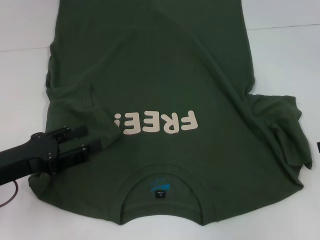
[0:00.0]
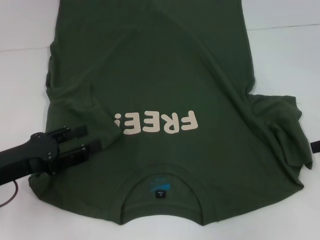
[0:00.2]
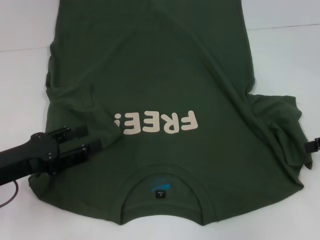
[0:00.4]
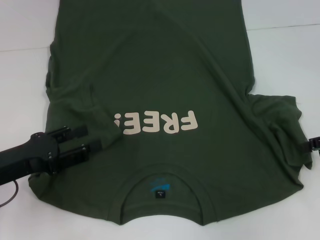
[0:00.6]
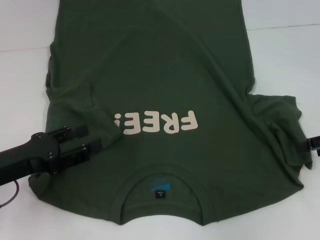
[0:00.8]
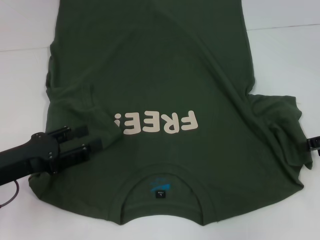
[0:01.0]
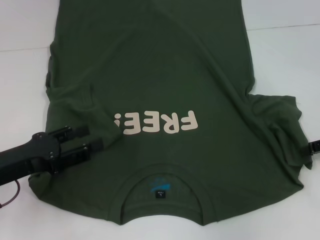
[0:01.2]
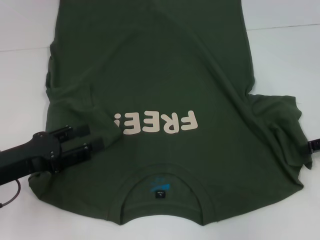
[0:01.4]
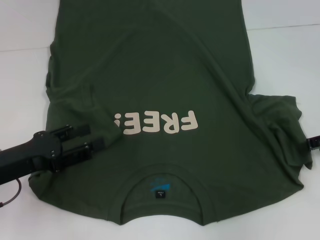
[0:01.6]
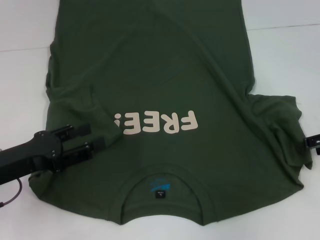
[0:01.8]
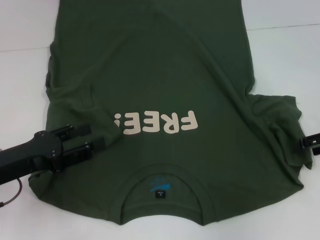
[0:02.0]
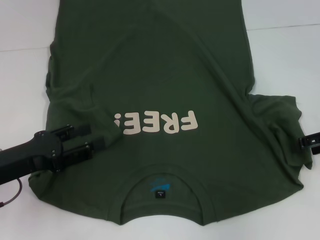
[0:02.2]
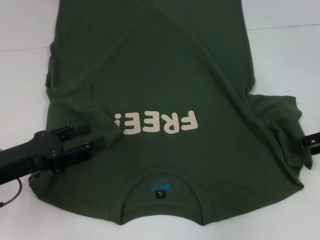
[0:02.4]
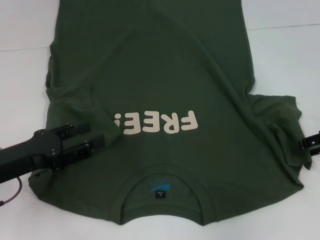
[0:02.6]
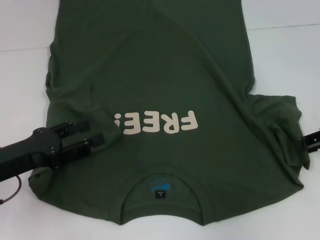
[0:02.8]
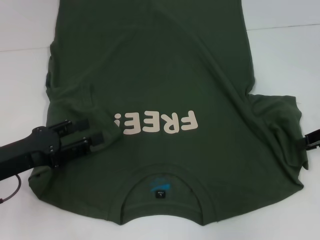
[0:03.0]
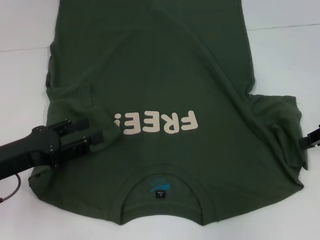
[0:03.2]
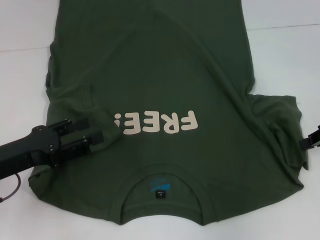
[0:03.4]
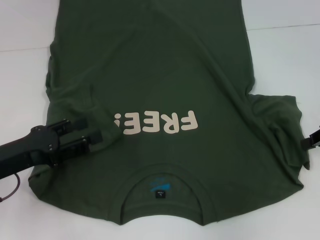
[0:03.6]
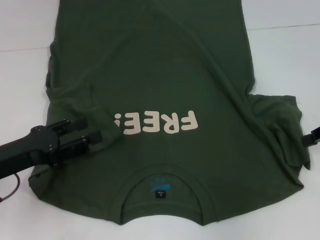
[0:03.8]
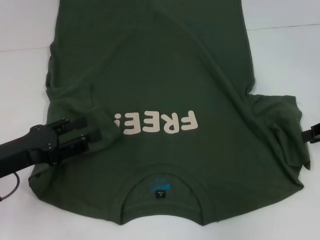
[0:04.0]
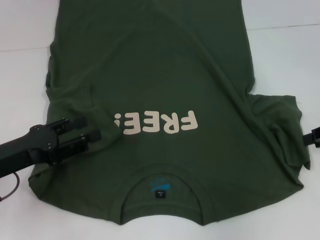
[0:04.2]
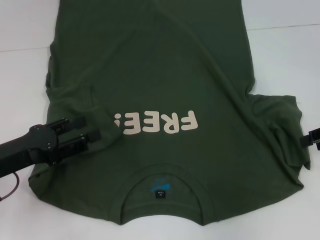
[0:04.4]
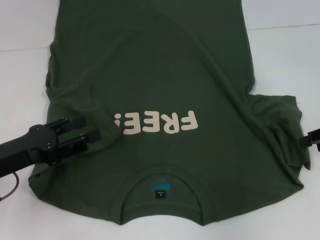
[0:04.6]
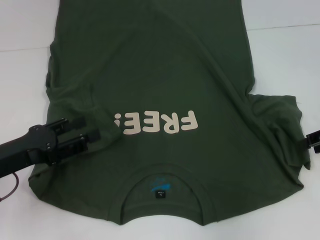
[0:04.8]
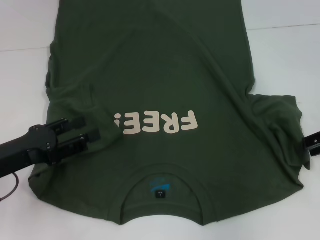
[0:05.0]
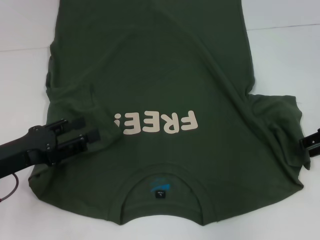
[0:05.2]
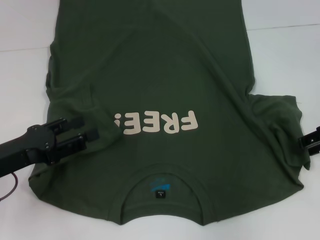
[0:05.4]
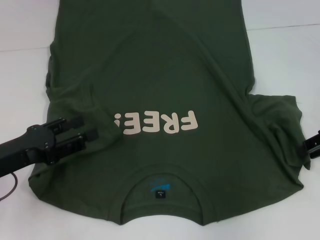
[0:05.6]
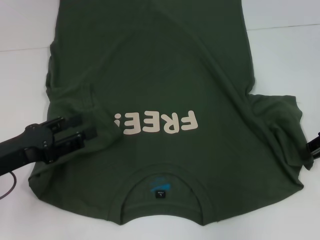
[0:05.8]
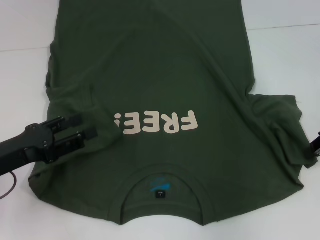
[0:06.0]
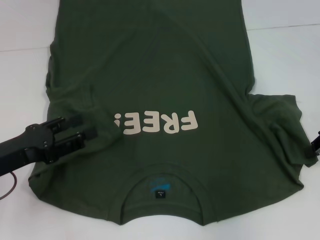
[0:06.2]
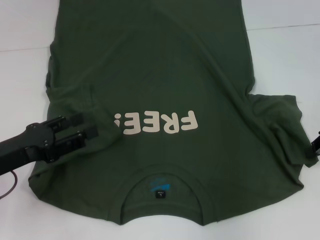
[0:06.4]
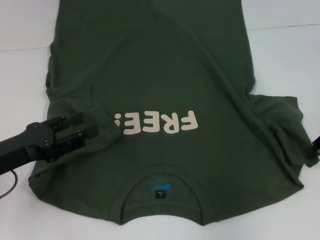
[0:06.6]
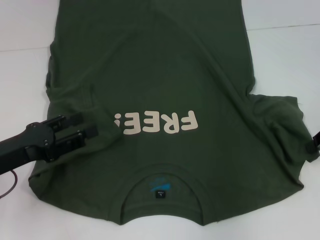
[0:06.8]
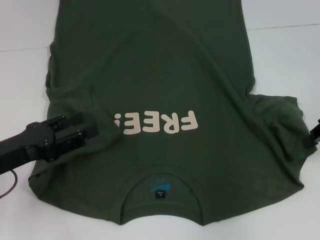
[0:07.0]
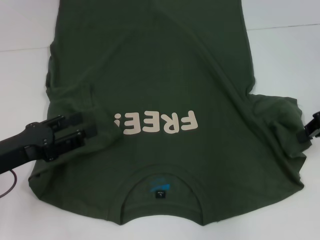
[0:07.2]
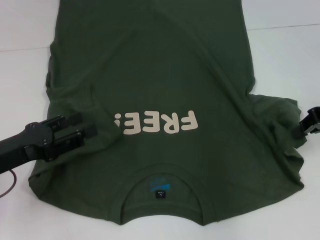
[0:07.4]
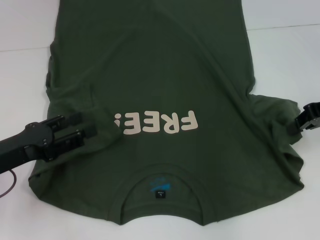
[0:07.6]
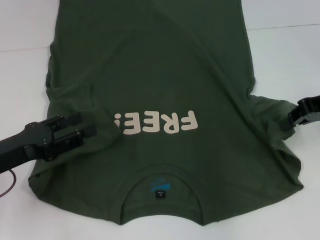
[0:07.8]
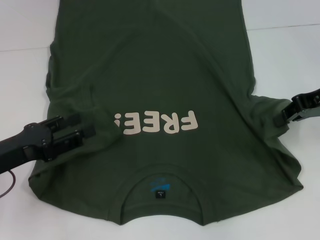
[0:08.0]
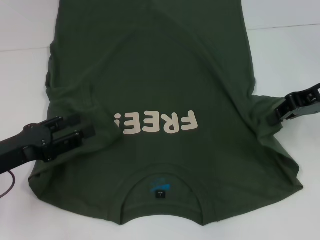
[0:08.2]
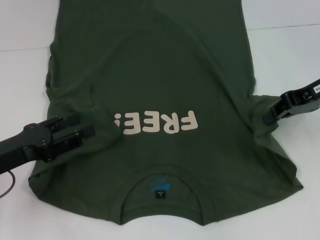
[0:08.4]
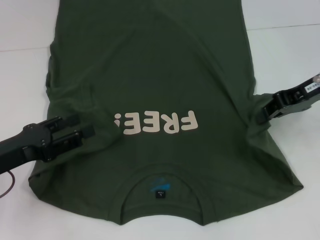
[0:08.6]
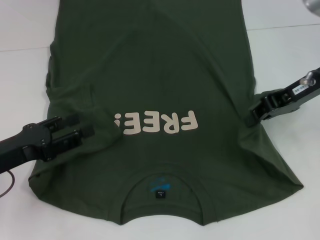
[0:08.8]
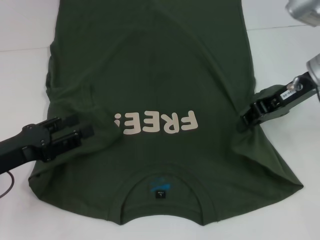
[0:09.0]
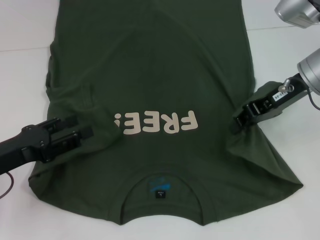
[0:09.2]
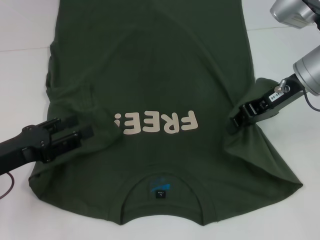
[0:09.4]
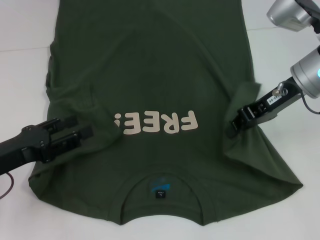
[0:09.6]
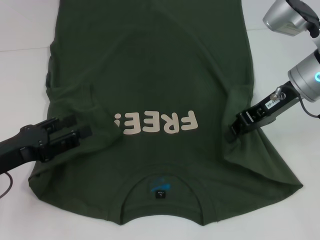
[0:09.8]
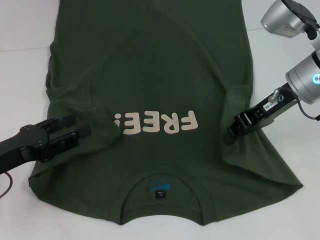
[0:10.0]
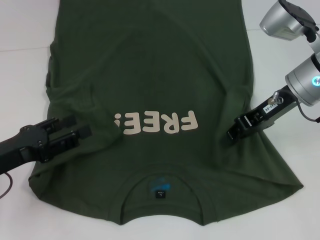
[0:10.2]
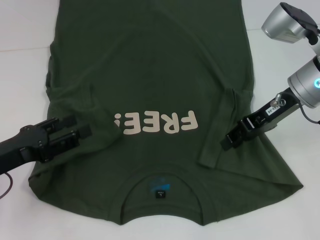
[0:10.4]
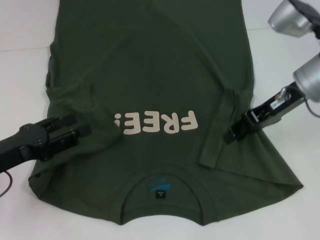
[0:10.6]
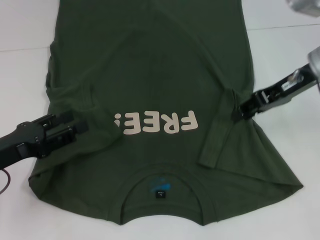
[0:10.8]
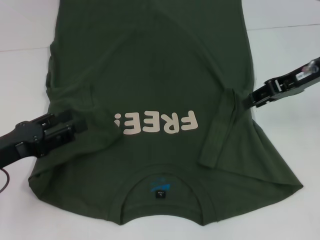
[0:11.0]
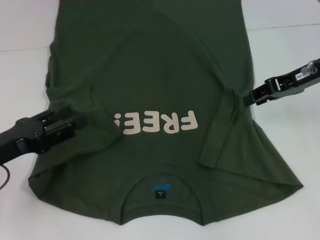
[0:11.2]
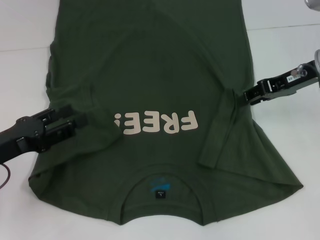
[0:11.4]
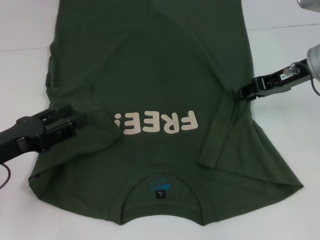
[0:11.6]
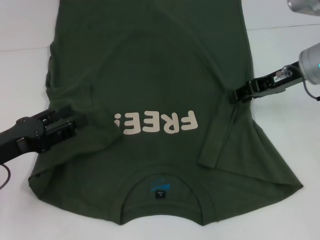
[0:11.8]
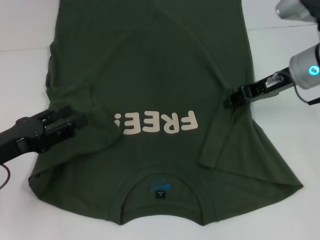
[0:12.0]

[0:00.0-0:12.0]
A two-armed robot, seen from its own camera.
Step, 0:00.0 to 0:11.8: Fold the bottom right sleeve with your right hand.
0:04.4 to 0:06.0: The grippers stay close to where they were, moving slightly.
0:06.0 to 0:07.6: The right gripper shifts by approximately 5 cm.
0:07.6 to 0:09.0: The right gripper heads to the left, covering roughly 10 cm.
0:09.0 to 0:10.4: There are only small adjustments of the grippers.
0:10.4 to 0:12.0: The right gripper opens up.

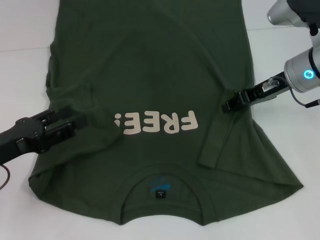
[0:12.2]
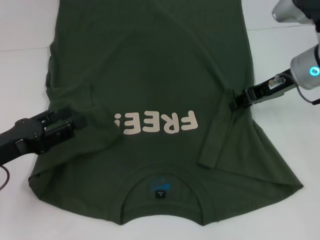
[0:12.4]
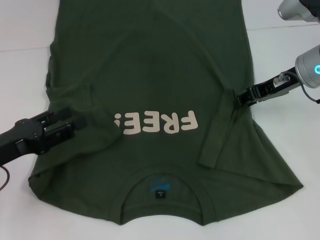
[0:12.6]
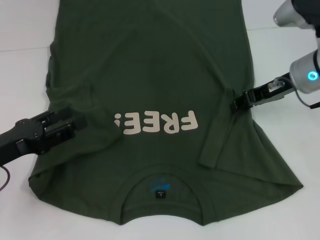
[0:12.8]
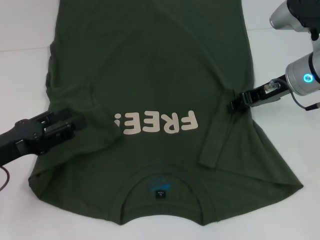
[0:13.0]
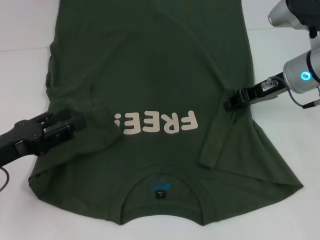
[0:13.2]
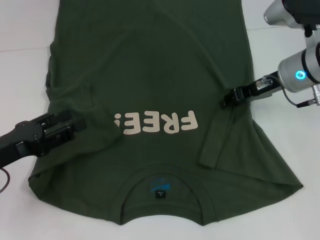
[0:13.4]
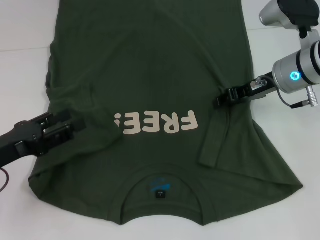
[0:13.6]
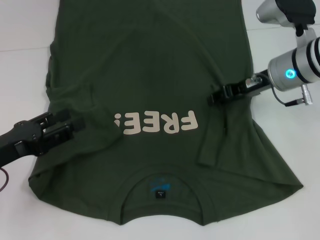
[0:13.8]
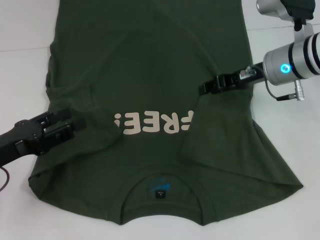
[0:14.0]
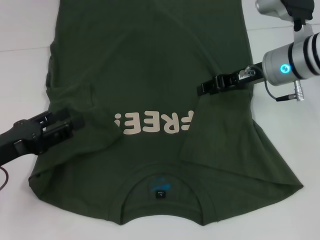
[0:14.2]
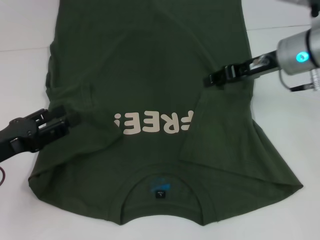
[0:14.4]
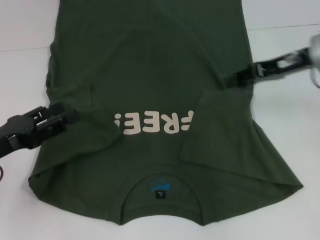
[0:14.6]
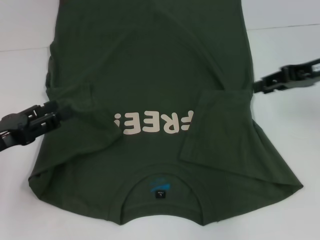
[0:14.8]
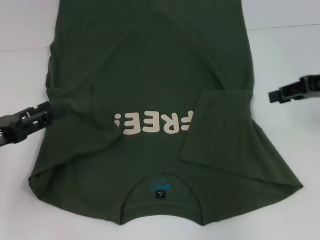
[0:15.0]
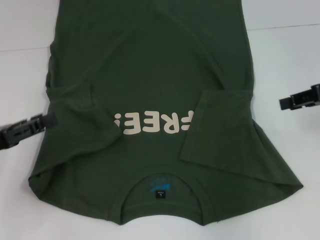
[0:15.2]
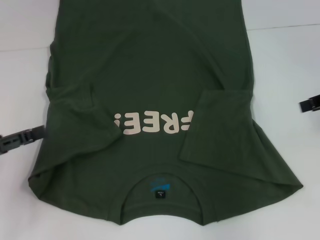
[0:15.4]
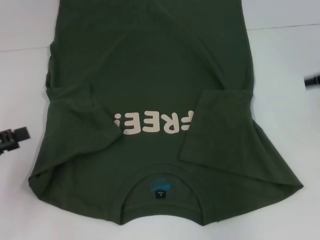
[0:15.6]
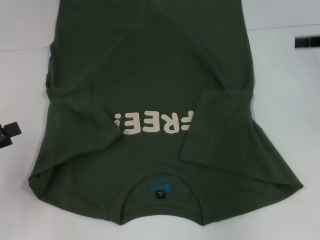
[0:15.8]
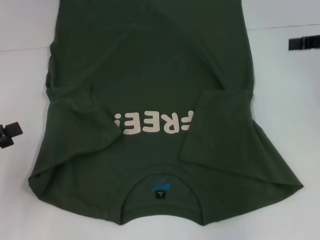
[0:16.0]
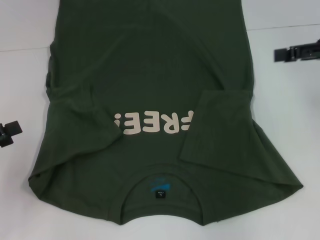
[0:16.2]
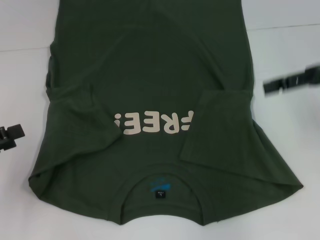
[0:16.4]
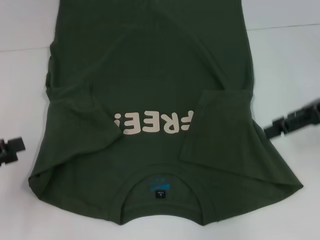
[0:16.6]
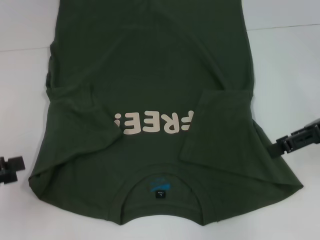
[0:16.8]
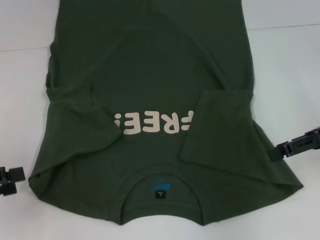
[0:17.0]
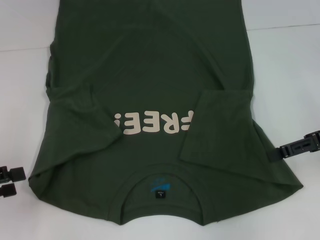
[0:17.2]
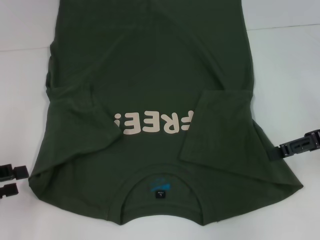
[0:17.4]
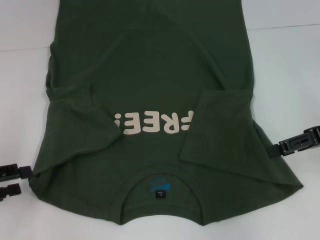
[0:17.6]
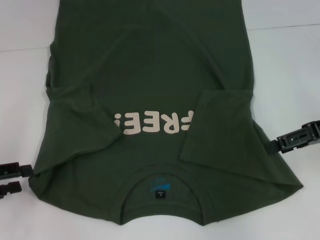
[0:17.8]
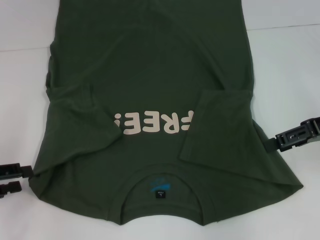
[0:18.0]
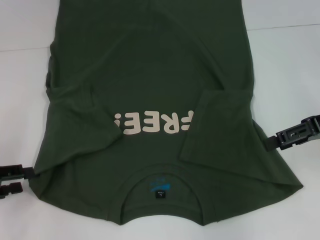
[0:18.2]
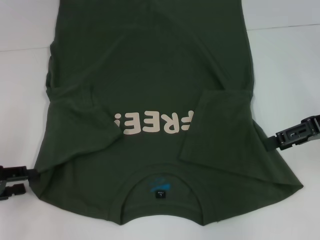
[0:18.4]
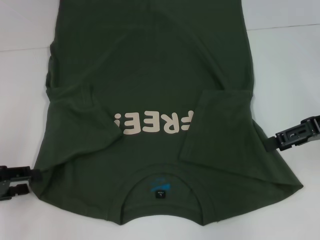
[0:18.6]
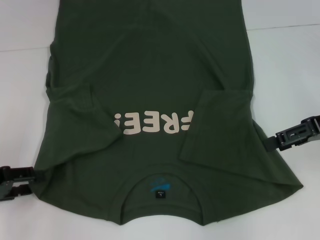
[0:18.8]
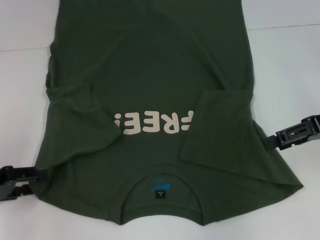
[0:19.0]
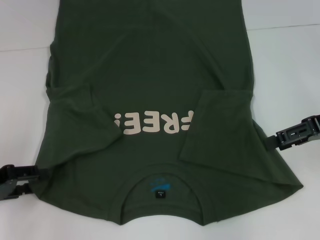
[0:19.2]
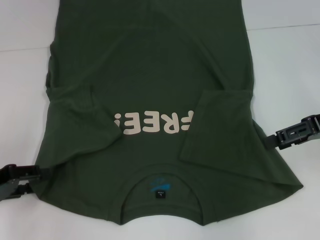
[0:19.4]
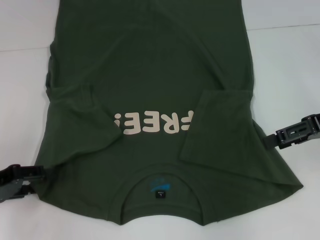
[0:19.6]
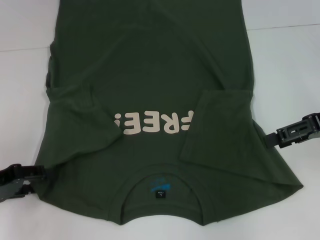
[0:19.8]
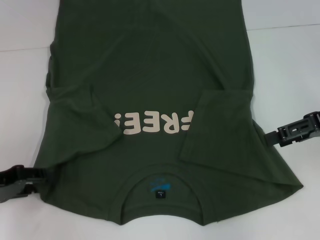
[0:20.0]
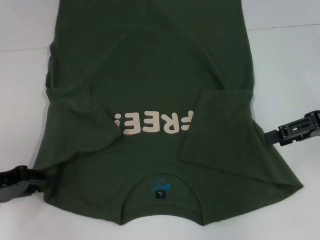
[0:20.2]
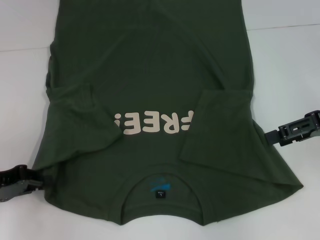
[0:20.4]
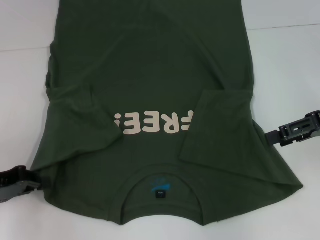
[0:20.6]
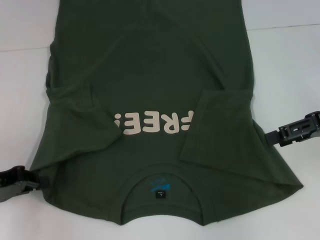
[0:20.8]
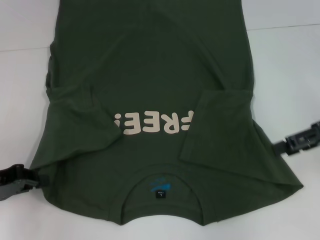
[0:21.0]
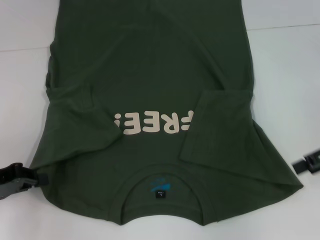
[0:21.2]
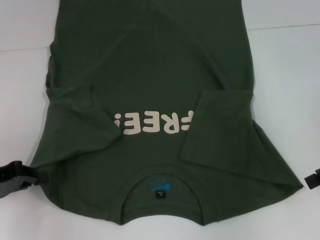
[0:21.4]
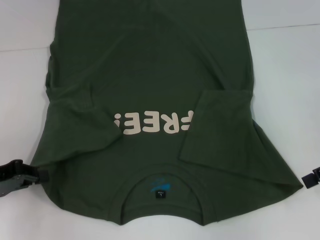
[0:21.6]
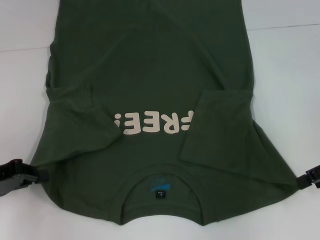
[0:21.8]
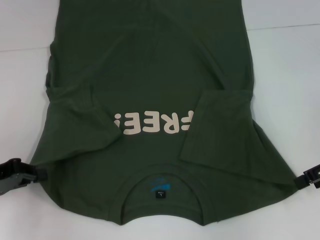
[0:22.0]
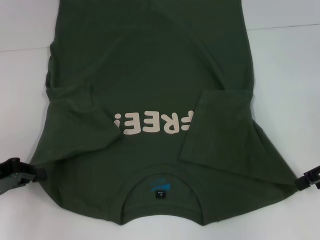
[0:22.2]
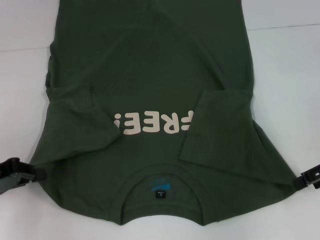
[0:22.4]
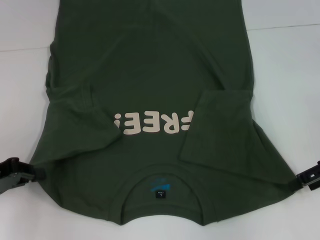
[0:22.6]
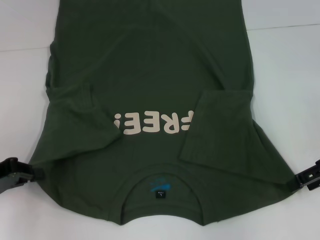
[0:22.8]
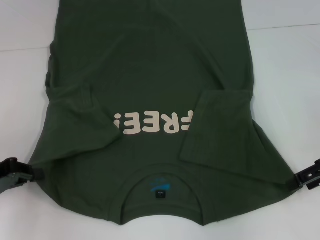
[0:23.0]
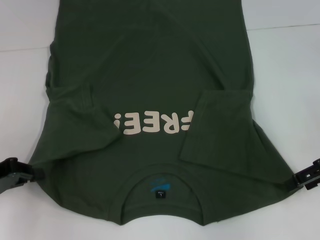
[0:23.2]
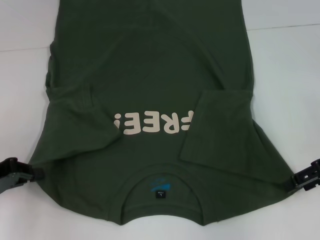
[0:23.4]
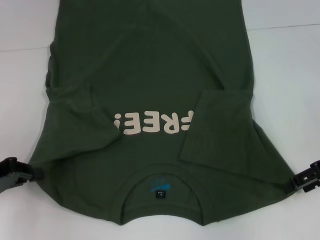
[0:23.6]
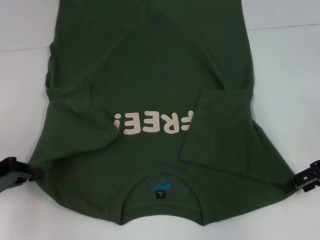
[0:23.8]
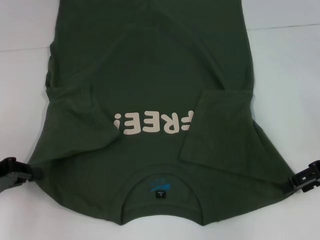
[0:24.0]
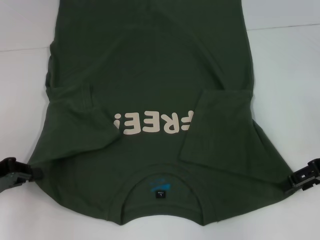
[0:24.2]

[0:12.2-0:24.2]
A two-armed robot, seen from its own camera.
Step, 0:12.2 to 0:20.8: Grab the bottom left corner with your left hand.
0:12.2 to 0:13.8: There are only small adjustments of the grippers.
0:13.8 to 0:15.2: The right gripper is displaced to the right and backward by about 15 cm.
0:15.2 to 0:16.6: The right gripper opens up; the left gripper shifts by some 5 cm.
0:18.2 to 0:19.8: The grippers move only a little.
0:19.8 to 0:21.2: The left gripper closes.
0:21.2 to 0:22.6: The grippers move only a little.
0:22.6 to 0:24.2: Neither gripper changes place.
